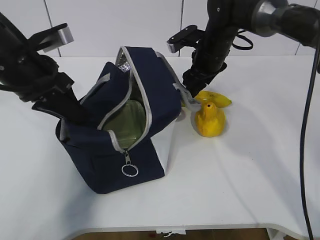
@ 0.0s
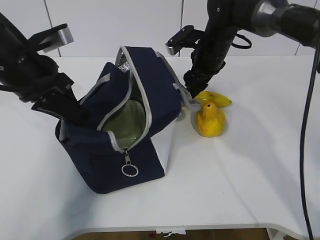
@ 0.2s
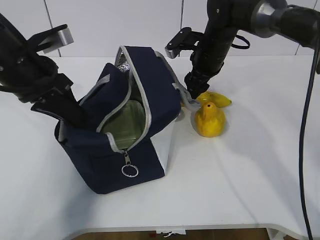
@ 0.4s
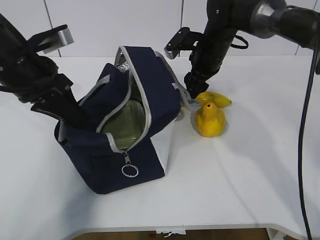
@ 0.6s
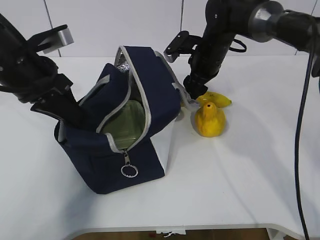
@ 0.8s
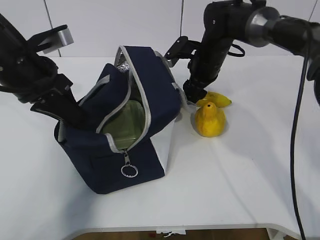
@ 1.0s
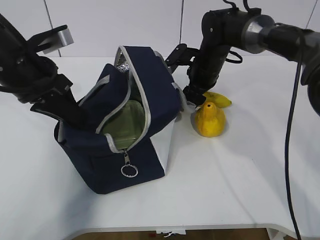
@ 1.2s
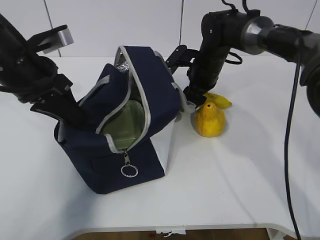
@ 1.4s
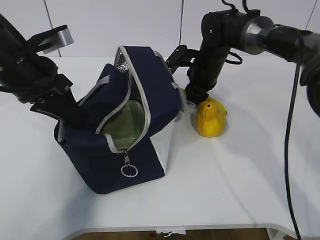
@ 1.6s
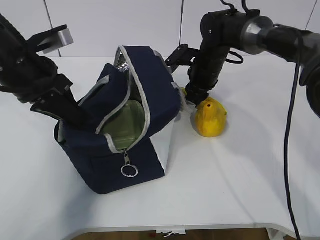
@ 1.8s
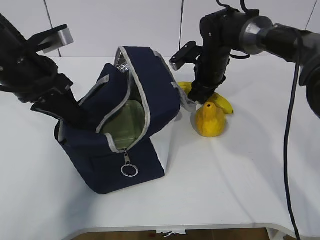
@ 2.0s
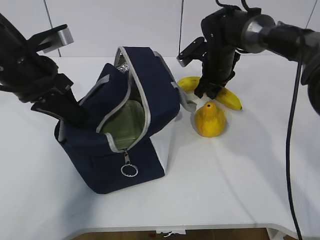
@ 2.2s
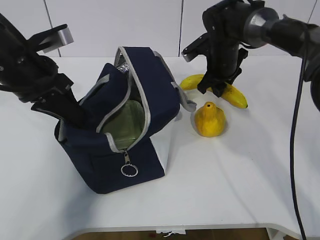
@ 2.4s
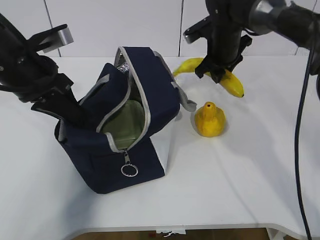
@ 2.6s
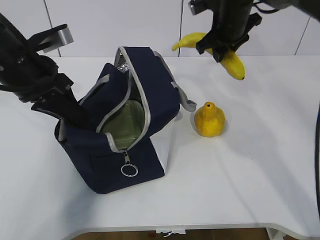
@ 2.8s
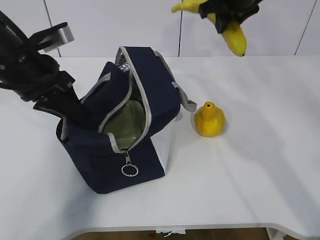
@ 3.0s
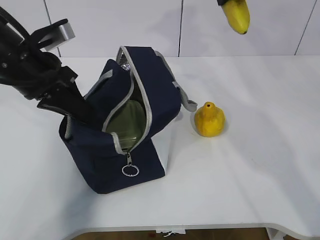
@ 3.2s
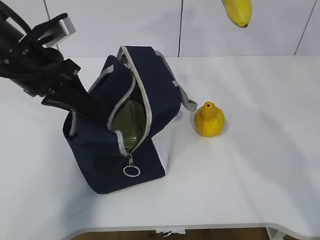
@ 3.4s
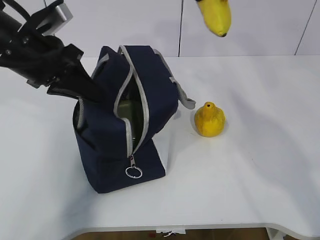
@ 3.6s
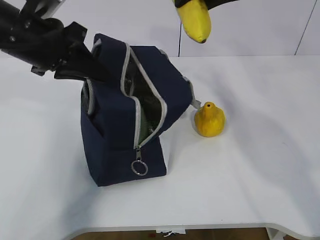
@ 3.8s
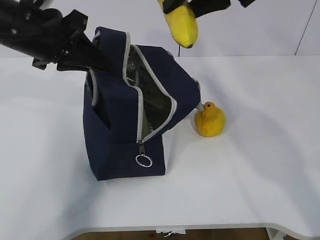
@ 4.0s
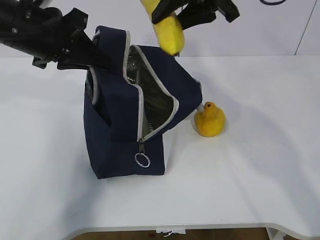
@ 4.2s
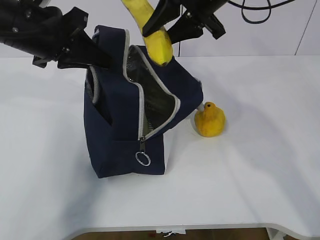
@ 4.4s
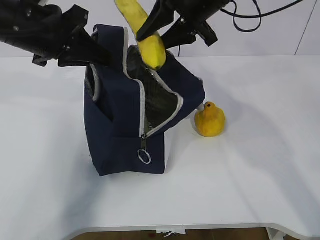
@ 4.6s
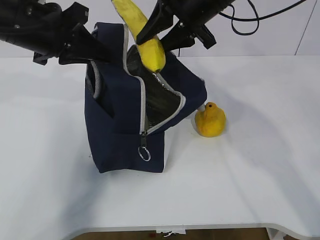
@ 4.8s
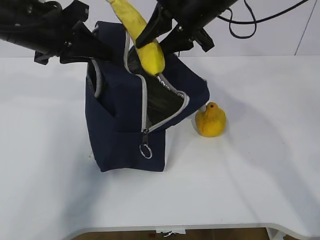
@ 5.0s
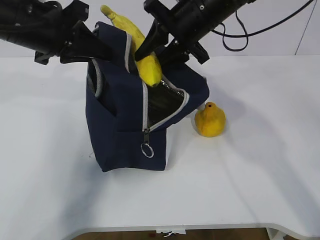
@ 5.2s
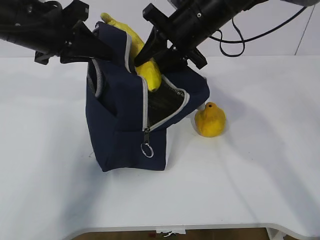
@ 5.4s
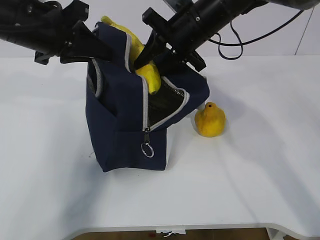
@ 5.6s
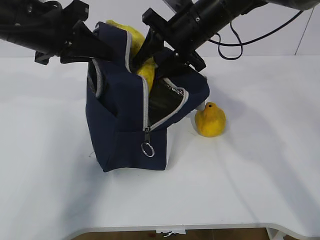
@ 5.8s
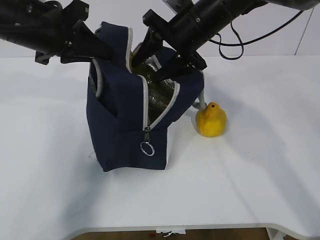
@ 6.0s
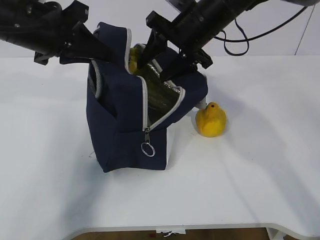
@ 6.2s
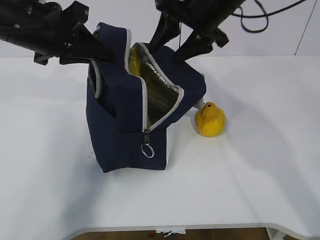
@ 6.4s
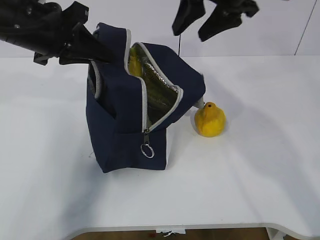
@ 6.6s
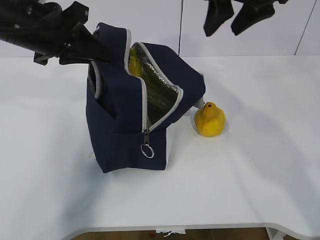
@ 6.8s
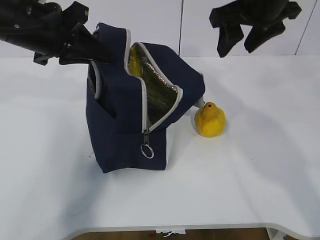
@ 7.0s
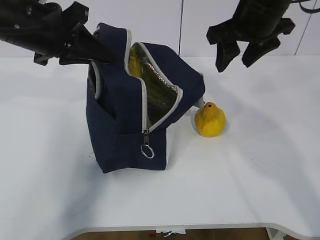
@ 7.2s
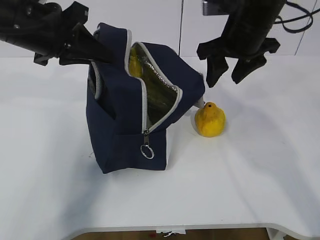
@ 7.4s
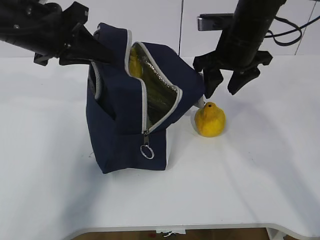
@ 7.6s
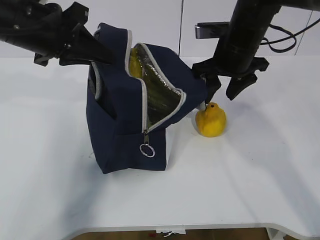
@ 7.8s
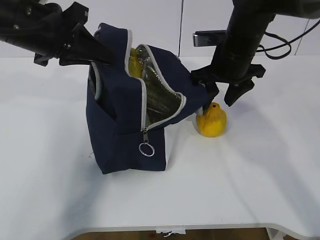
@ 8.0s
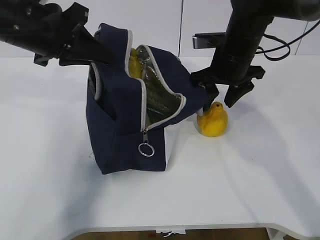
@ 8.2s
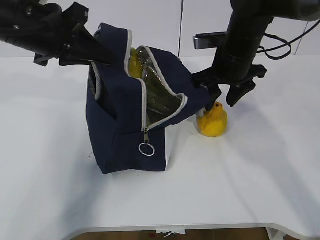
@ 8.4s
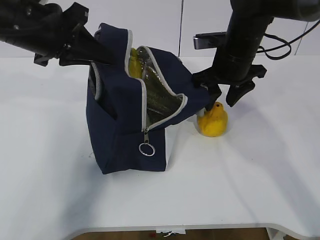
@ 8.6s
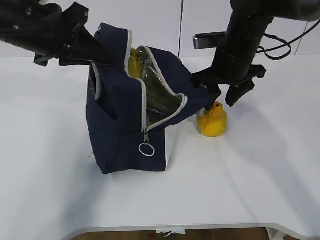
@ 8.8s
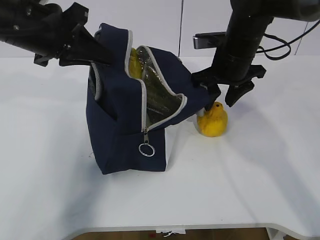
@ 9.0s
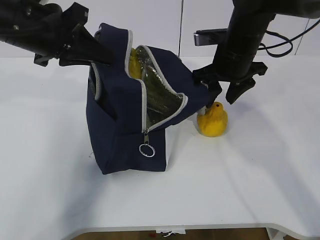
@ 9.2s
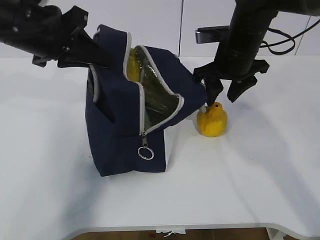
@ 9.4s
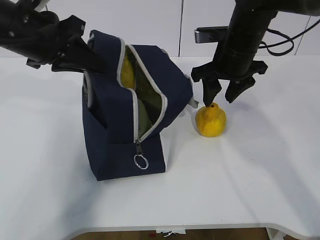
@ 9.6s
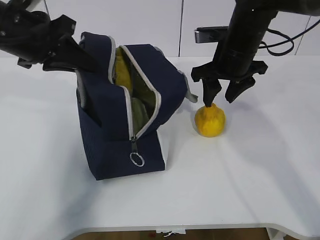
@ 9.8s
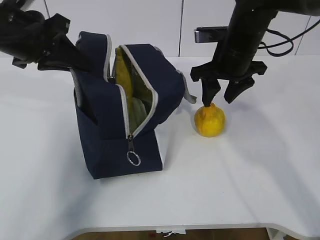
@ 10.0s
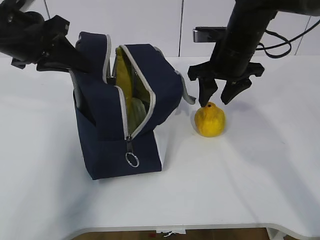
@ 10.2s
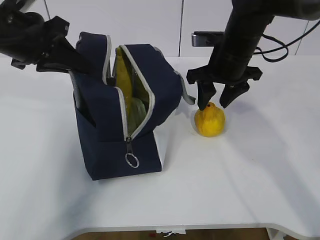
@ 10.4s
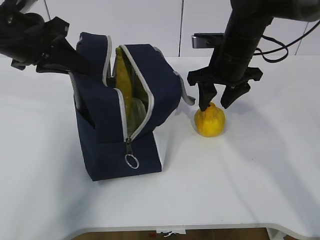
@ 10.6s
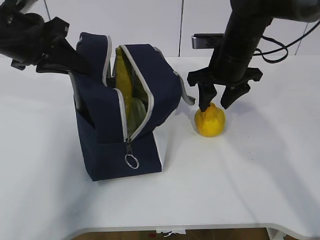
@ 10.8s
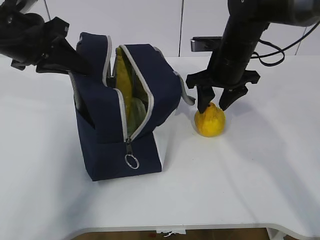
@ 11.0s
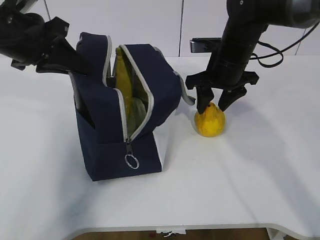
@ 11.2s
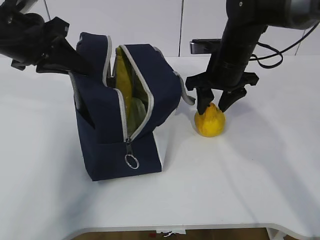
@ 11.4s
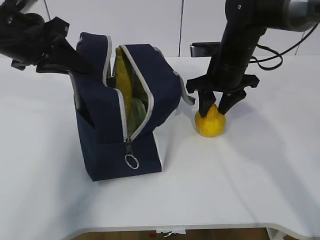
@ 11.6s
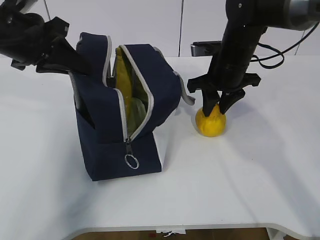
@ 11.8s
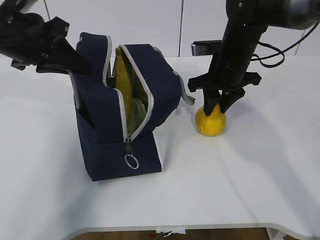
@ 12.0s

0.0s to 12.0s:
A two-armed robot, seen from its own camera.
Step, 0.0s to 1.6s: Place it into the bag with your right hand.
Step, 1.8s to 6.6s: Grab the pear with your right hand.
Step, 9.2s to 9.8s: Grab the lunch bag with your right hand.
0.0s to 1.6s: The right gripper closes.
1.6s to 3.0s: The right gripper goes roughly 15 cm upward.
3.0s to 4.4s: The right gripper moves backward and to the left, about 10 cm.
4.4s to 6.0s: The right gripper travels downward by approximately 5 cm.
6.0s to 7.6s: The right gripper shifts some 5 cm to the right, and reaches approximately 10 cm upward, then returns.
7.6s to 12.0s: The grippers move only a little.

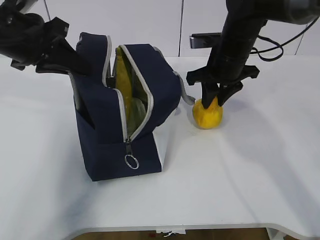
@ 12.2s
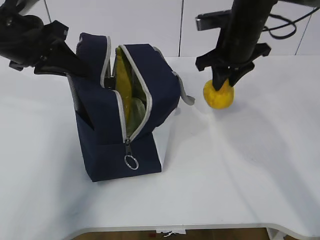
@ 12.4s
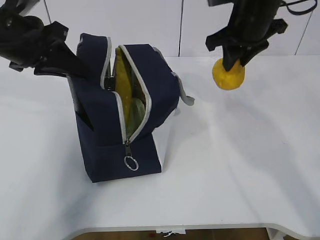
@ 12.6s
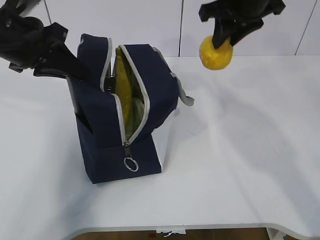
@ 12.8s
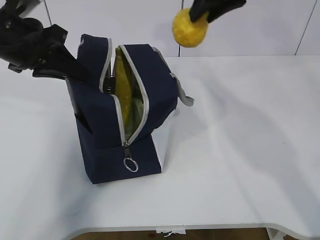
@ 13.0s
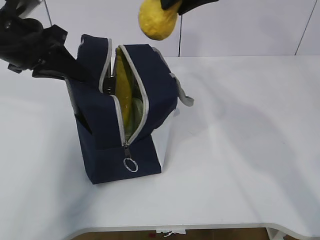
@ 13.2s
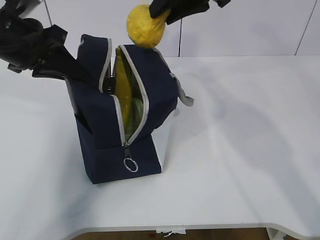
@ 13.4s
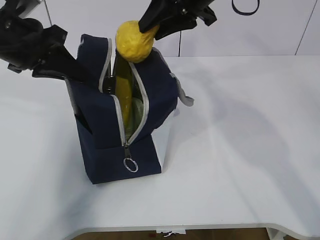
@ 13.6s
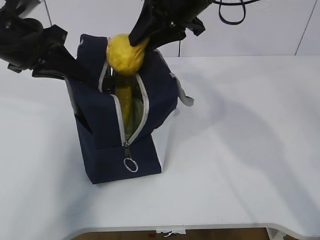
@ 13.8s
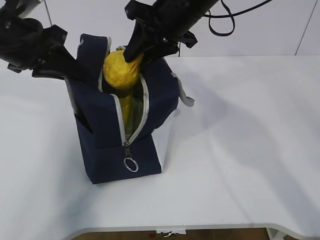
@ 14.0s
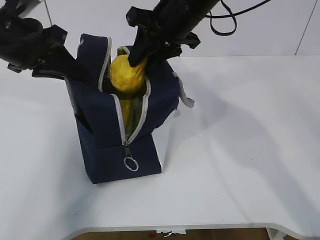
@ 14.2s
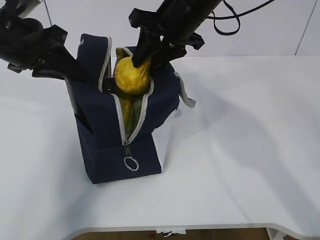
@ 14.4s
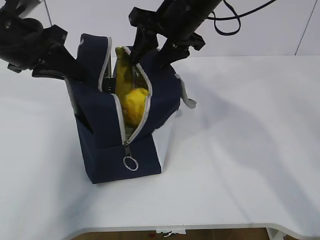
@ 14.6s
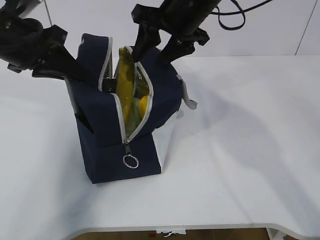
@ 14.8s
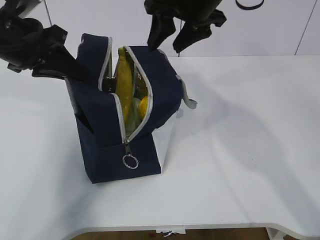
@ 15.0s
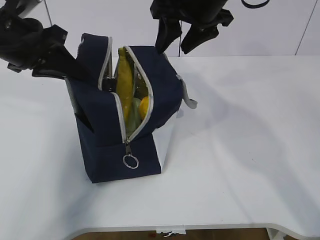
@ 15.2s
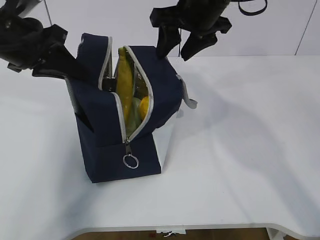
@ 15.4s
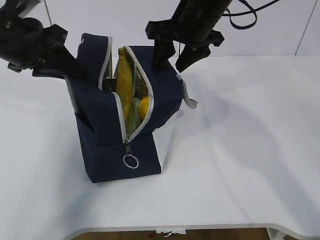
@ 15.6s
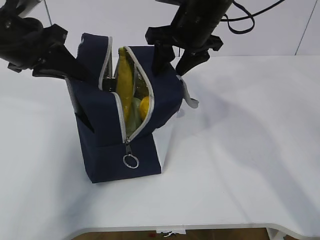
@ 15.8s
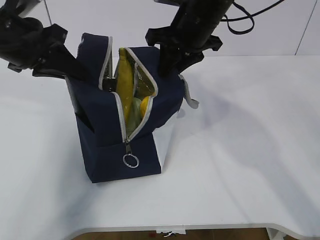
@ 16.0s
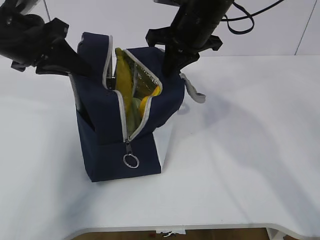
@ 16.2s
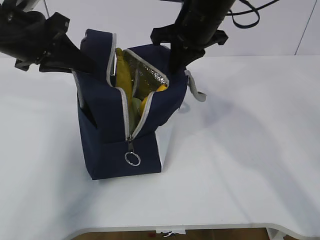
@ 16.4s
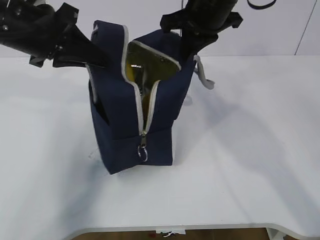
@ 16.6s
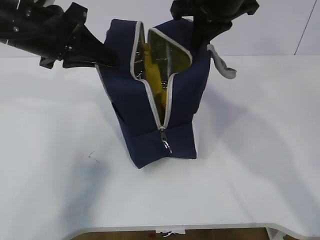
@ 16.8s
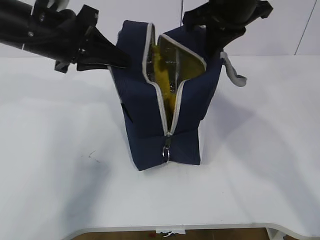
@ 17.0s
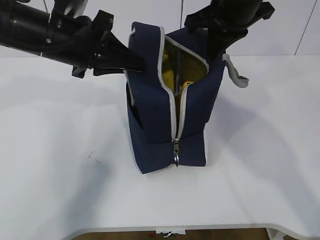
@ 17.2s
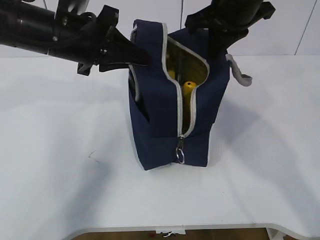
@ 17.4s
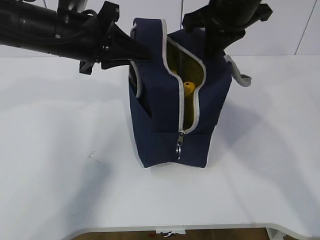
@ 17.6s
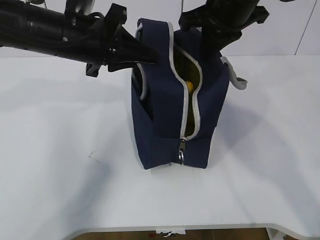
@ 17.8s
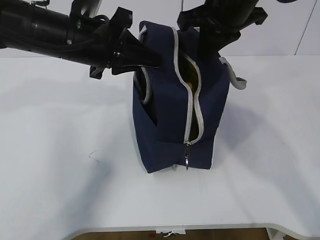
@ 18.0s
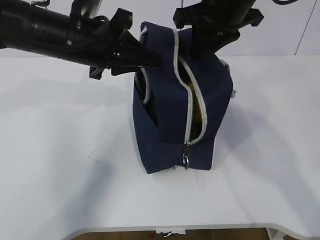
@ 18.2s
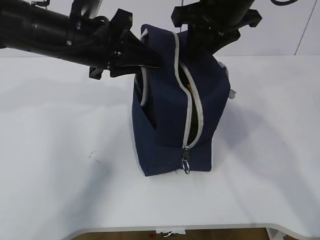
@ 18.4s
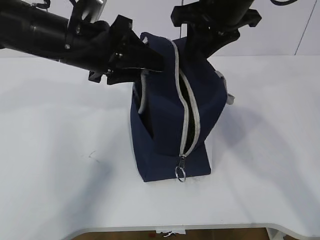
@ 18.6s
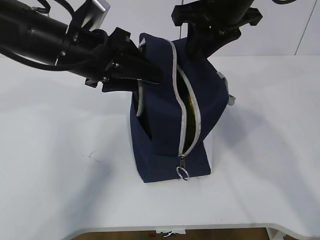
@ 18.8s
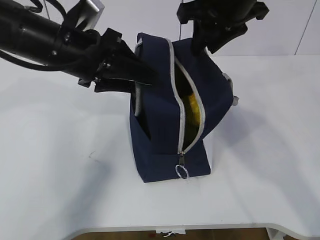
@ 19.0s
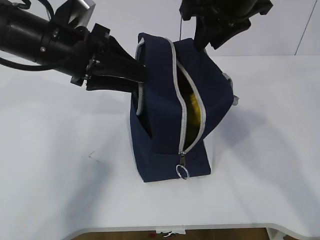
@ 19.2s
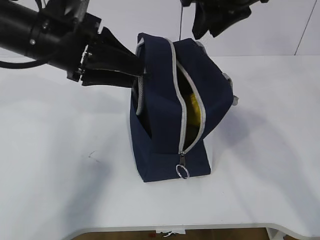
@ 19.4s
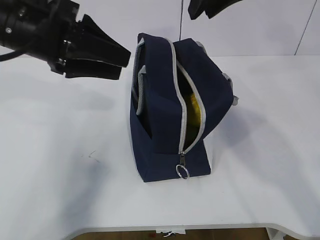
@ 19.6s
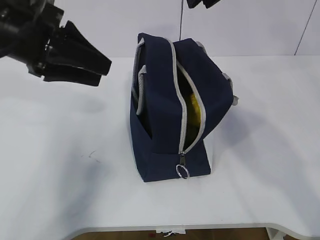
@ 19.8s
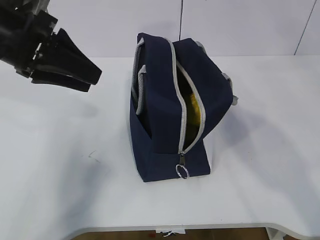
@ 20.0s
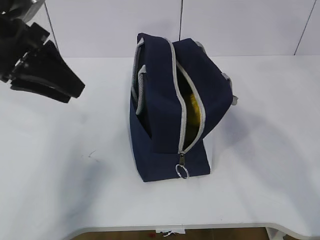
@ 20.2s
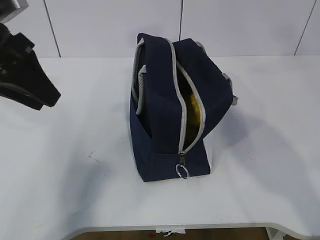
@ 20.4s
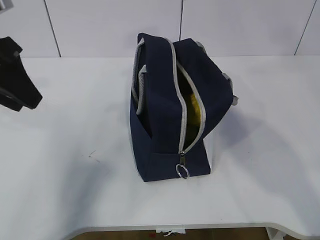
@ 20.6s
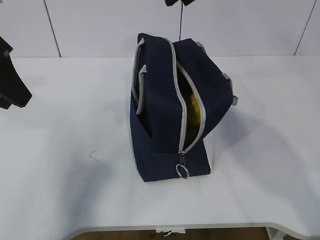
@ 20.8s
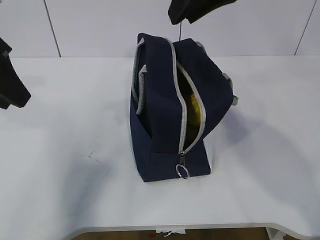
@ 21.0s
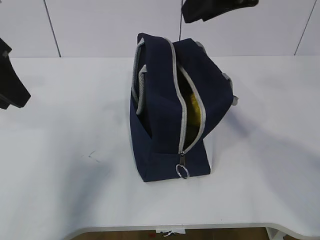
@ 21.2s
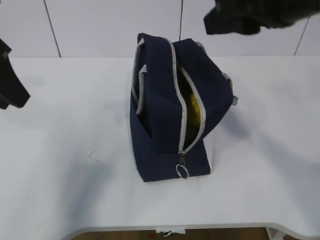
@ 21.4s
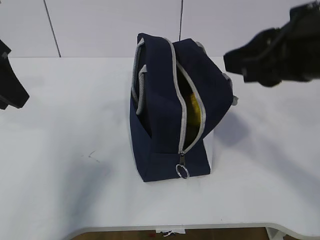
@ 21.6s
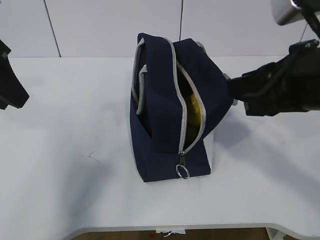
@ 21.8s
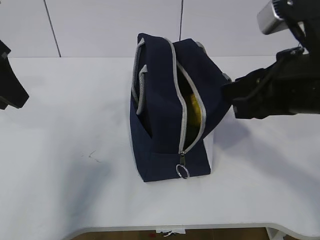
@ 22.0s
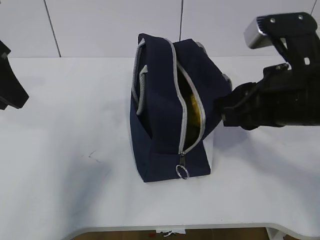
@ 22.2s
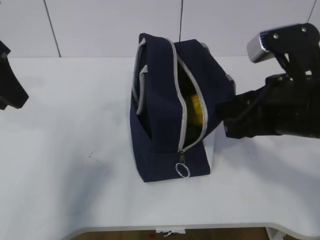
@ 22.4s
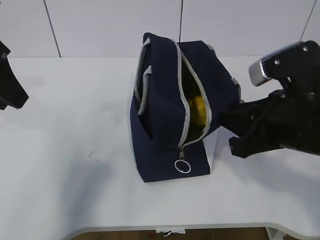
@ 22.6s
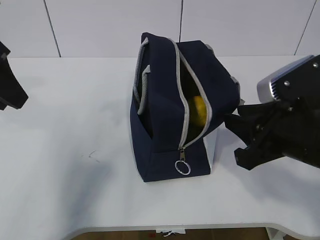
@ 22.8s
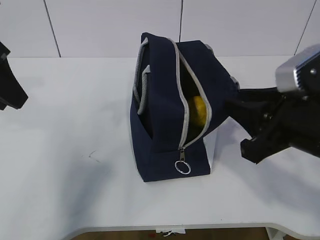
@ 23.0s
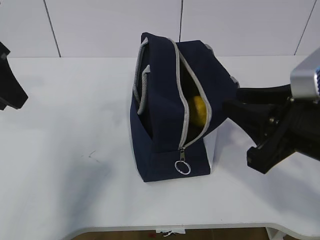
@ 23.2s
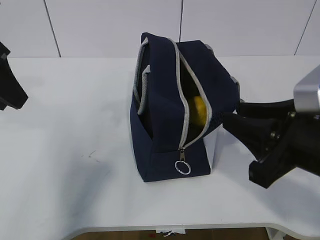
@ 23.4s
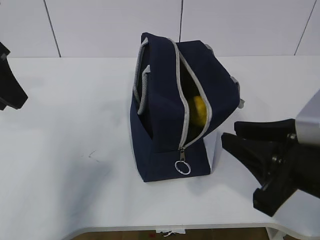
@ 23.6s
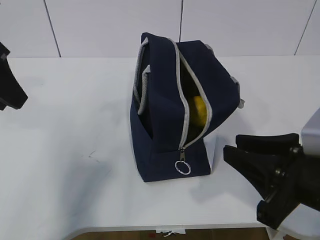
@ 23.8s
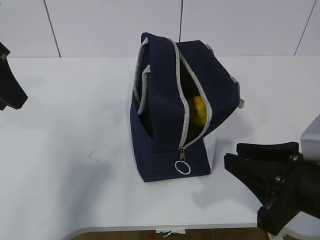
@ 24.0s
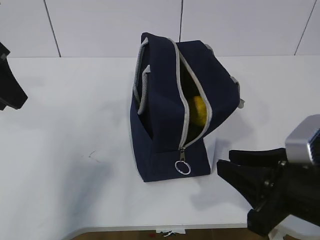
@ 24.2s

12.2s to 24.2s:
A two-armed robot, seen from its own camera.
12.2s to 13.8s: The right gripper is displaced upward and to the left by about 15 cm.
13.8s to 15.2s: The right gripper opens its fingers.
15.2s to 16.6s: The right gripper closes.
16.6s to 18.2s: The left gripper heads to the right, covering approximately 5 cm.
18.2s to 19.8s: The right gripper is displaced upward by some 5 cm. The left gripper goes some 5 cm to the left, and opens its fingers.
19.8s to 21.2s: The right gripper travels backward by approximately 5 cm. The left gripper shifts approximately 5 cm to the left.
21.2s to 22.6s: The right gripper moves downward and backward, approximately 20 cm.
22.6s to 24.2s: The right gripper moves backward and downward, about 10 cm.
